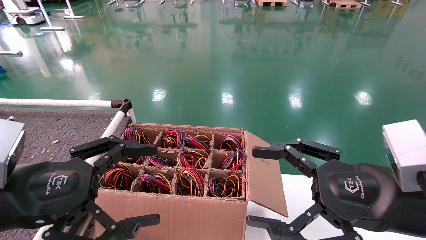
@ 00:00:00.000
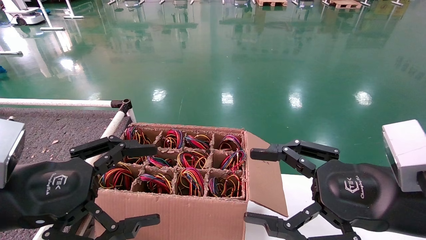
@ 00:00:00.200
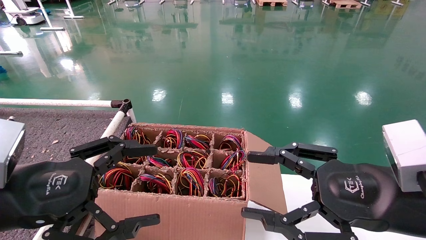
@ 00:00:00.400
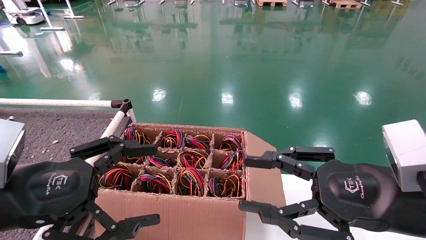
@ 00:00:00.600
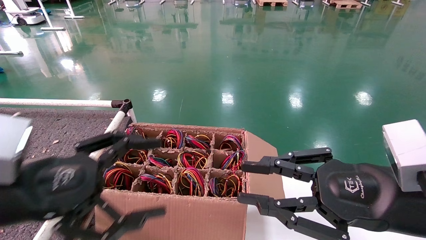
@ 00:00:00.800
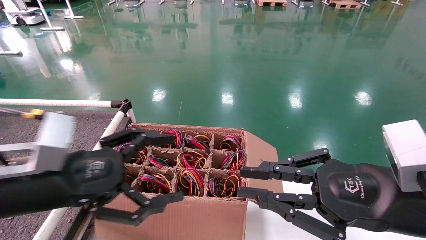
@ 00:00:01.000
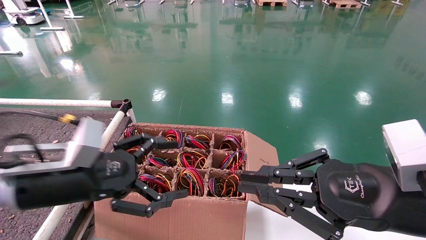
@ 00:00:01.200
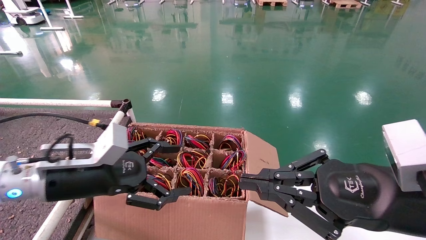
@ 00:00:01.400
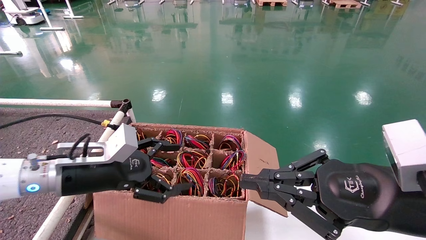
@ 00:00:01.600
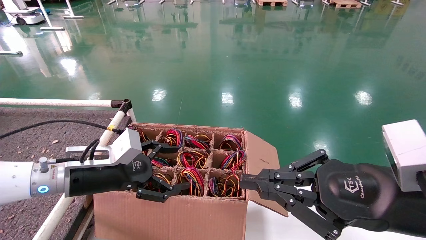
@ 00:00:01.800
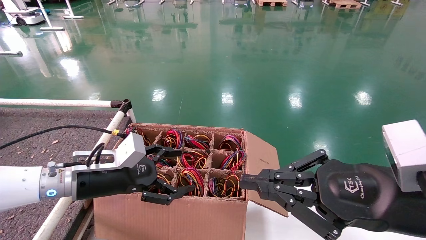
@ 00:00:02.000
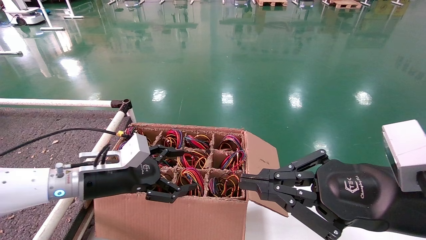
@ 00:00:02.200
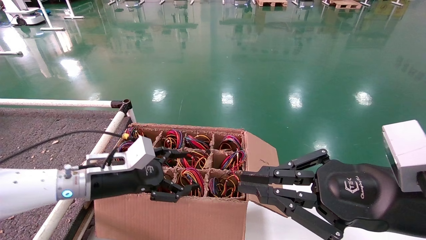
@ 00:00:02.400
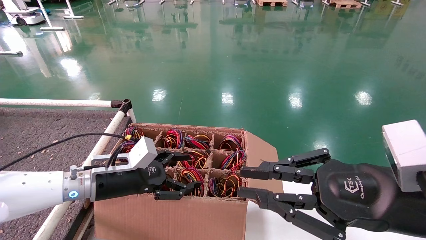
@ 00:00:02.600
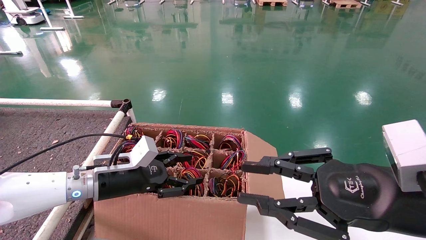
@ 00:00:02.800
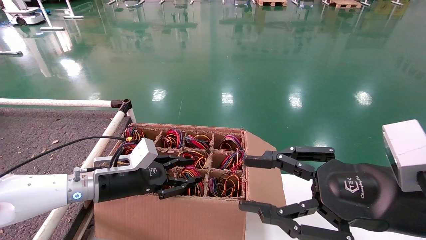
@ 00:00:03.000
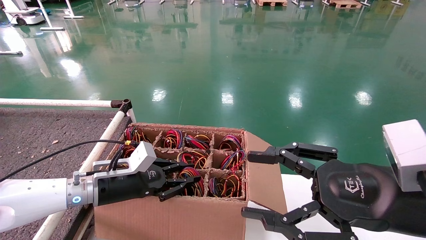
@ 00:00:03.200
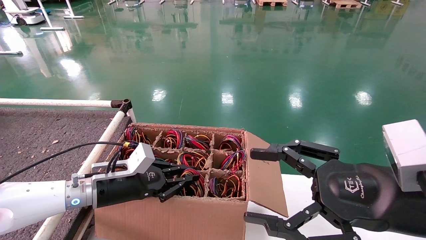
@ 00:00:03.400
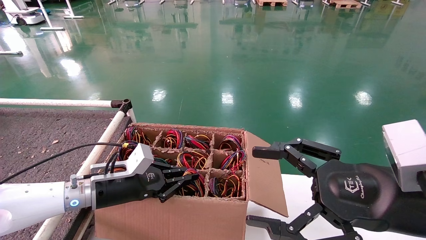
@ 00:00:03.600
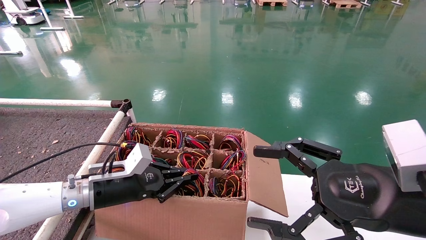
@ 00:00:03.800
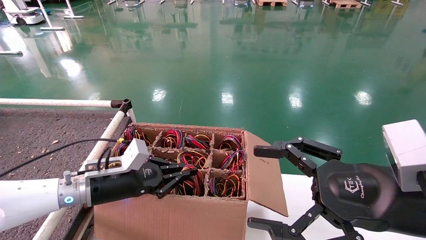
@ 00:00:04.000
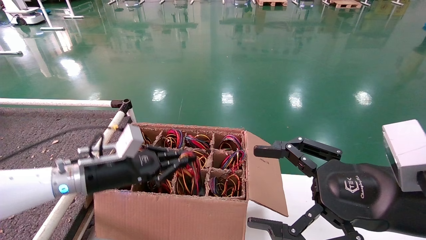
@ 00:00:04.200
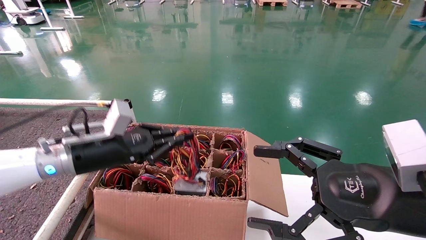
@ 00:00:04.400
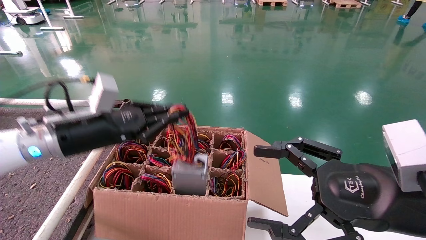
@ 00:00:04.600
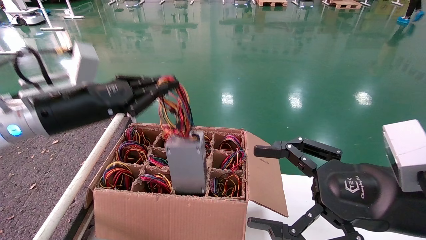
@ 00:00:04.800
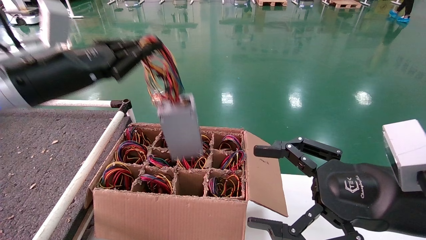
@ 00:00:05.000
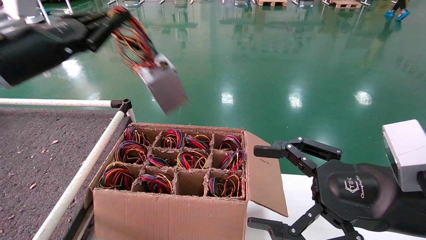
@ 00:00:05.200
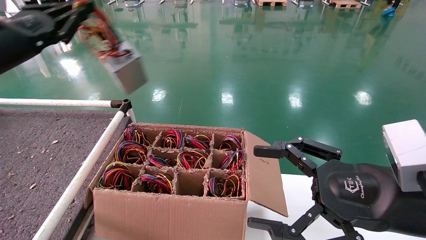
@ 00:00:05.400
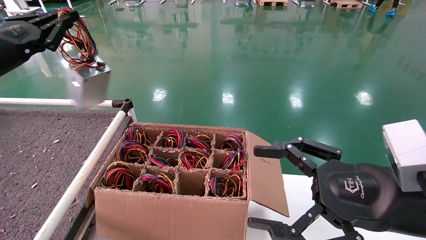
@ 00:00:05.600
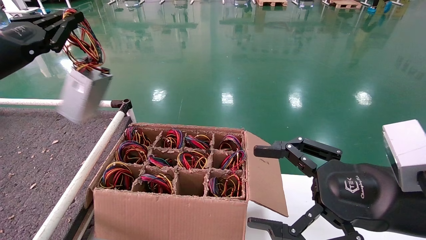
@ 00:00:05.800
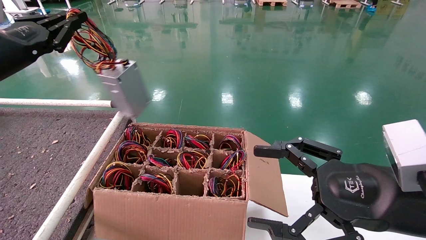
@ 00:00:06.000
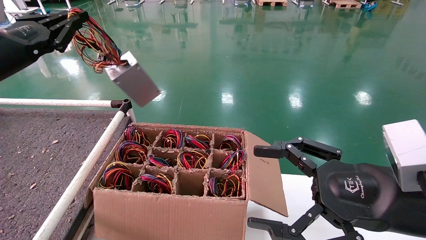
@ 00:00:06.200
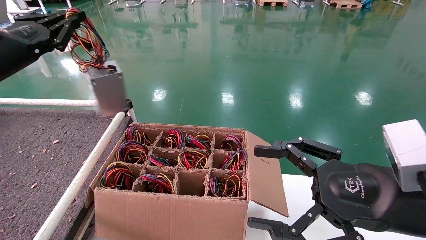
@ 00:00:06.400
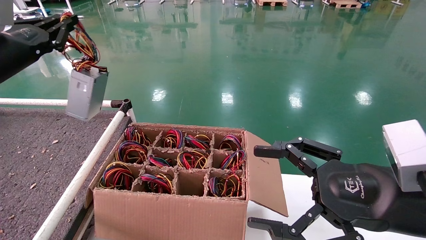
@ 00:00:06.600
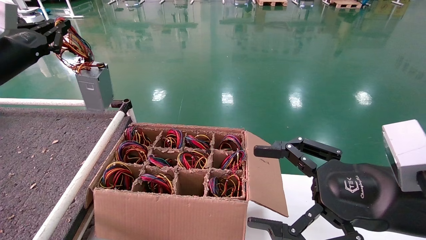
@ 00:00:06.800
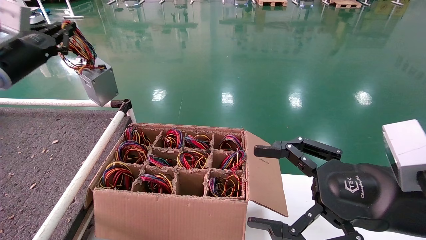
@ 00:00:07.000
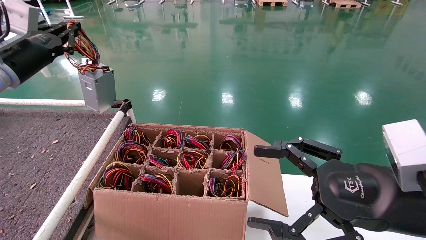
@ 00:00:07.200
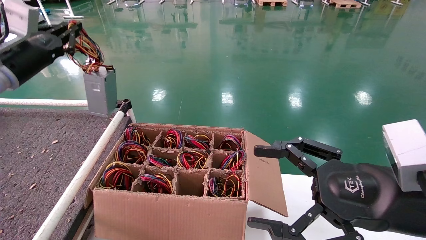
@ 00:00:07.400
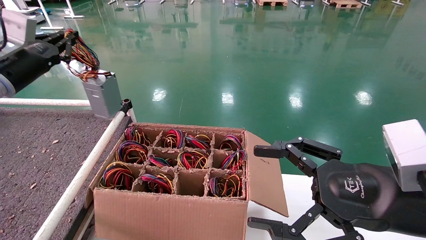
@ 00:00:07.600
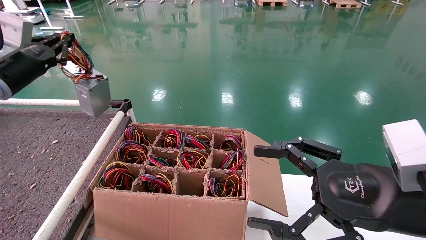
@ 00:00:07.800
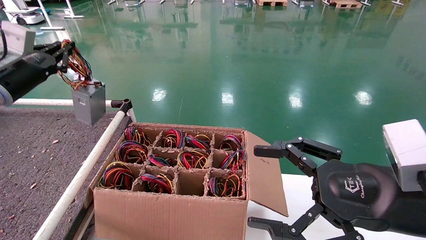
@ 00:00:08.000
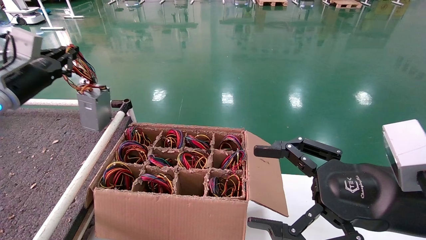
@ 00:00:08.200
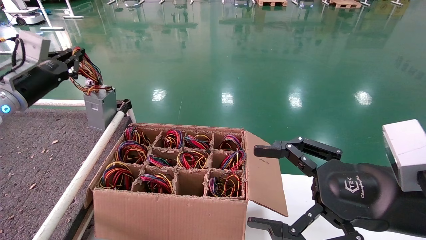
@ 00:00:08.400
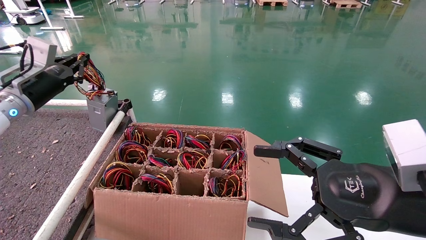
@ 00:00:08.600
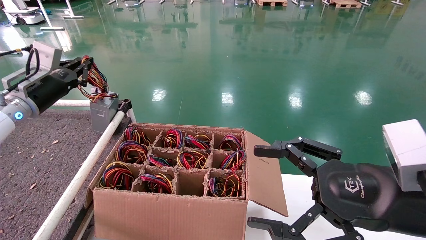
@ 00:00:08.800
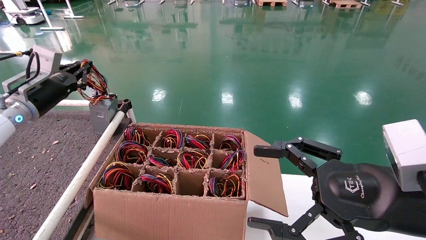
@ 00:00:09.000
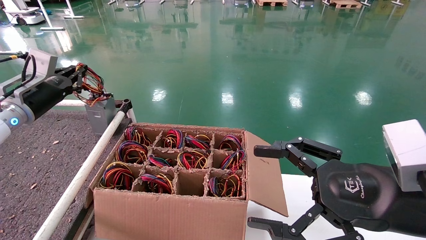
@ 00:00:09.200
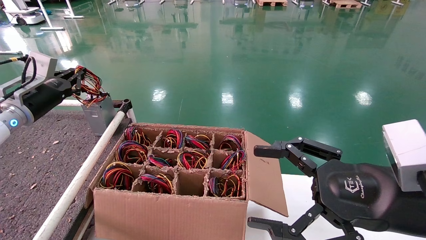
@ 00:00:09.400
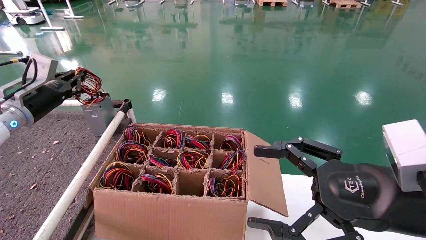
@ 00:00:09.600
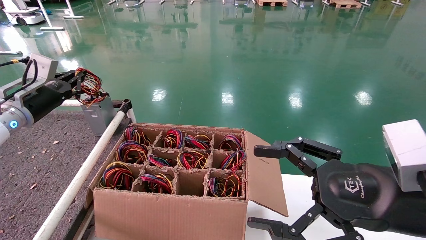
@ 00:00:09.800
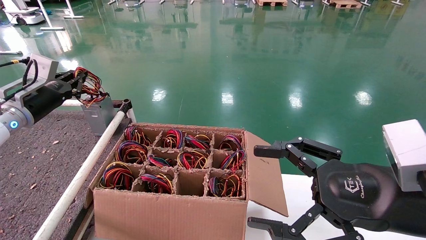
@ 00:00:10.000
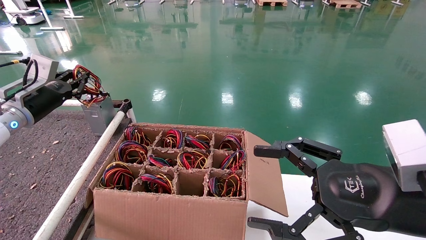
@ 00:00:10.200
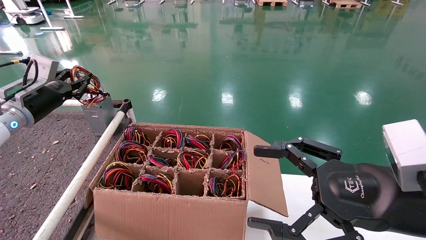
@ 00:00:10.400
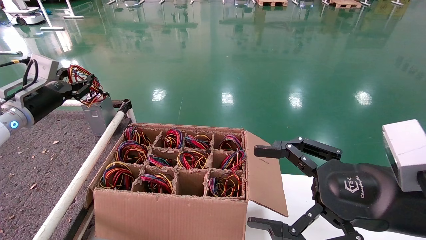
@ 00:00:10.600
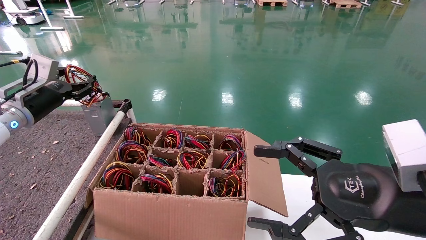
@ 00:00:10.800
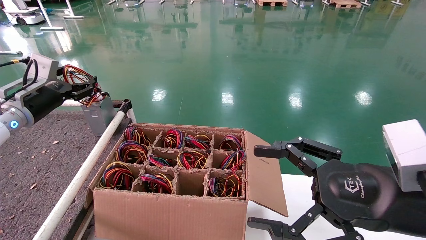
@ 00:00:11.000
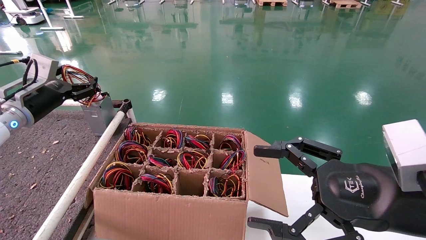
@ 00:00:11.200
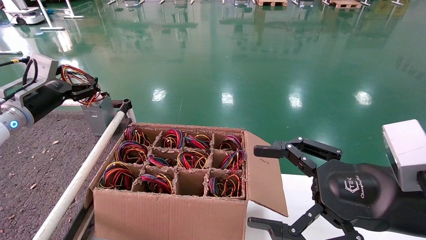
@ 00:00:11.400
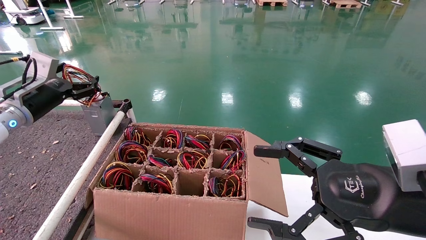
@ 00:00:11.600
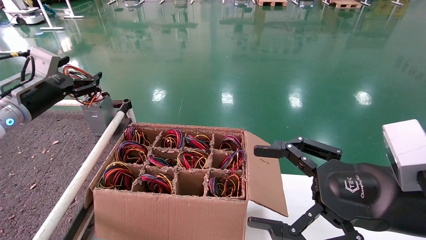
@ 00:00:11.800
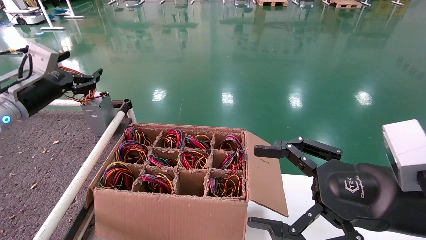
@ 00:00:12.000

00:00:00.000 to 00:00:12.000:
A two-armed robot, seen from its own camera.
Step, 00:00:01.000 to 00:00:04.000: Grab and lift the power supply from the large box.
Step, 00:00:04.200 to 00:00:10.400: Place the power supply on the operating table.
00:00:00.000 to 00:00:01.600: The left gripper travels forward by some 15 cm. The right gripper closes.
00:00:01.600 to 00:00:03.000: The right gripper opens its fingers. The left gripper travels downward and forward by about 10 cm, and closes.
00:00:03.000 to 00:00:04.400: The right gripper opens. Meanwhile the left gripper travels upward by approximately 10 cm, and closes.
00:00:04.400 to 00:00:06.000: The left gripper shifts about 20 cm upward and to the left.
00:00:06.000 to 00:00:07.600: The left gripper is displaced forward by about 5 cm.
00:00:07.600 to 00:00:09.000: The left gripper goes about 5 cm downward.
00:00:09.000 to 00:00:10.400: There are only small adjustments of the grippers.
00:00:10.400 to 00:00:12.000: The left gripper opens its fingers.

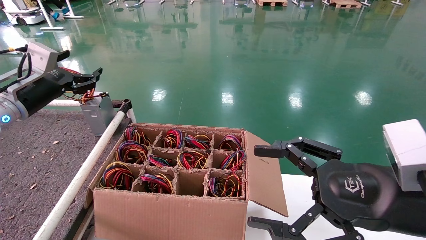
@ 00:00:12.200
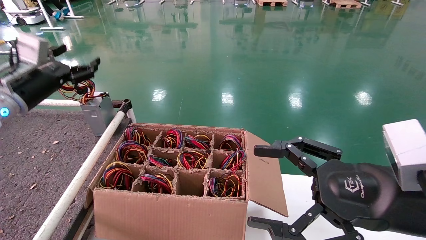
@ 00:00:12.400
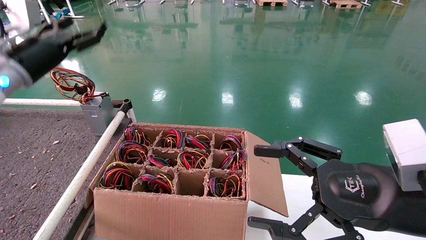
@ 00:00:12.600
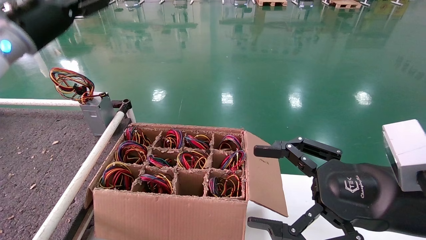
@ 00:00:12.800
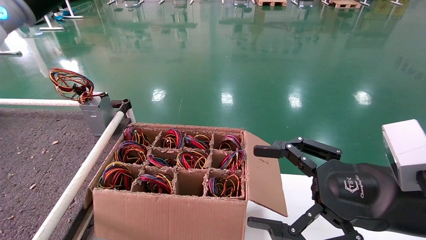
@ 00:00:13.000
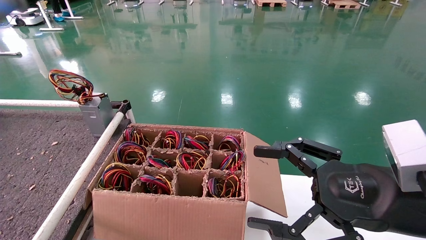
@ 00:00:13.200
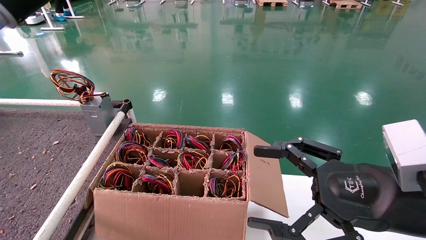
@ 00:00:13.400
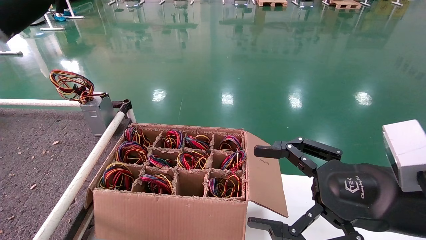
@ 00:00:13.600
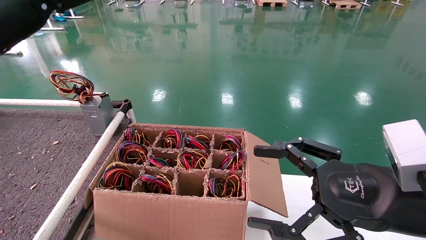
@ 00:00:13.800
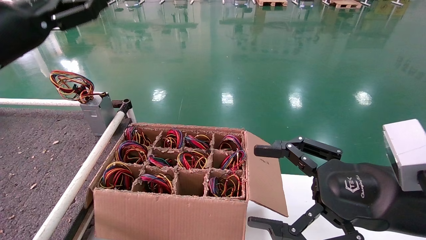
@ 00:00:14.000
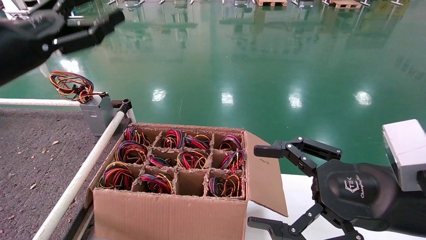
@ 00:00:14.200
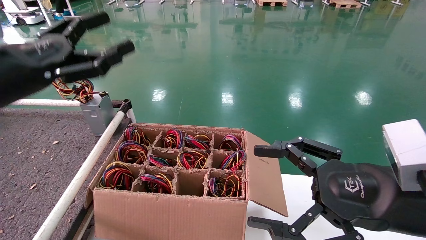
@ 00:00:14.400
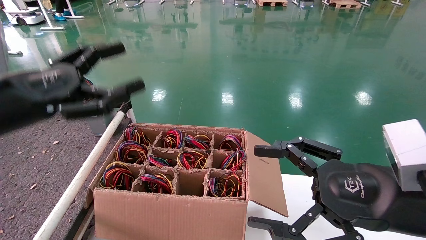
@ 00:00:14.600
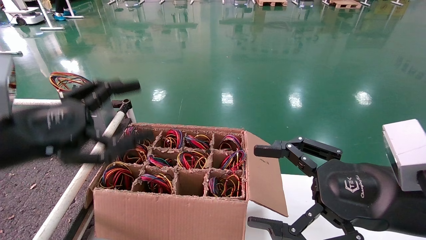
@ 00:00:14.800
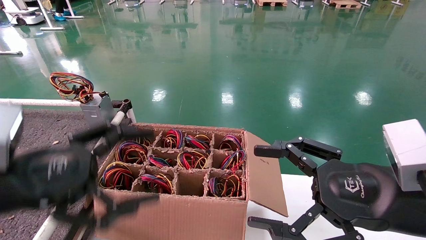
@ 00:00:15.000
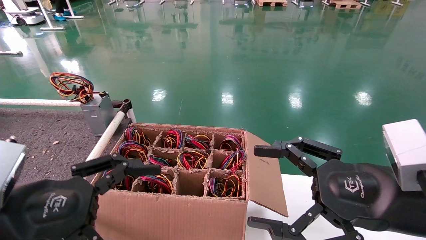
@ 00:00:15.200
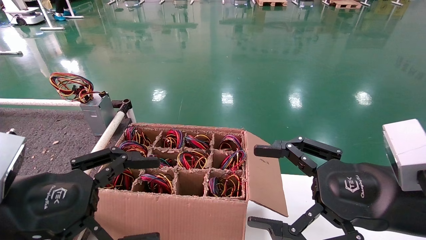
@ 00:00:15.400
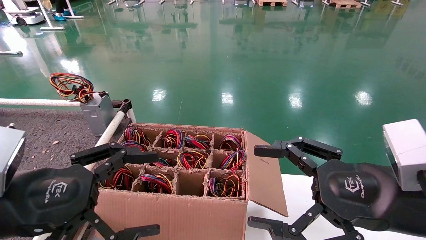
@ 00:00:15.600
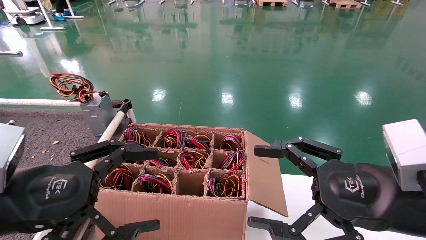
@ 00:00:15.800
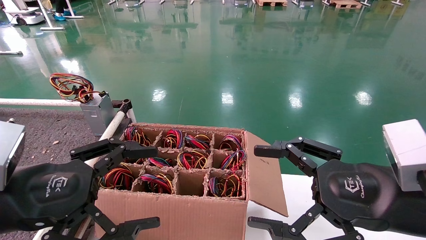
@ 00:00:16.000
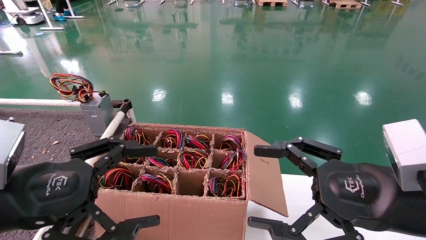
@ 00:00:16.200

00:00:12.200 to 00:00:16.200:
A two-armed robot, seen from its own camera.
00:00:12.200 to 00:00:13.600: The left gripper is displaced upward, backward and to the right by about 15 cm.
00:00:13.600 to 00:00:14.800: The left gripper heads downward and backward, covering approximately 20 cm.
00:00:14.800 to 00:00:16.200: The left gripper ends up roughly 5 cm from where it was.
